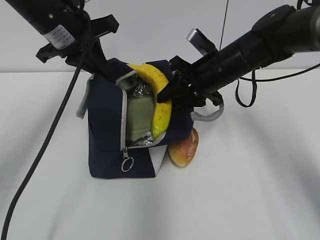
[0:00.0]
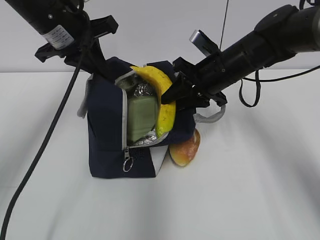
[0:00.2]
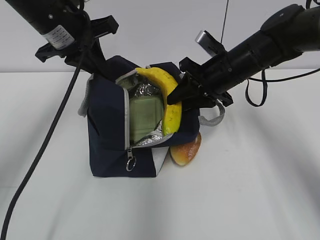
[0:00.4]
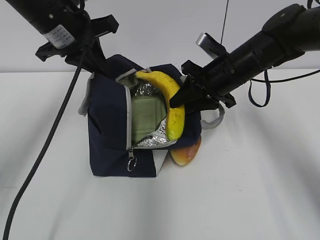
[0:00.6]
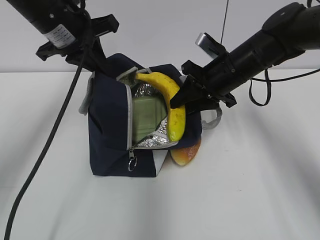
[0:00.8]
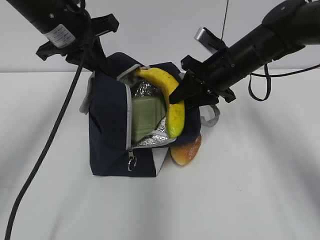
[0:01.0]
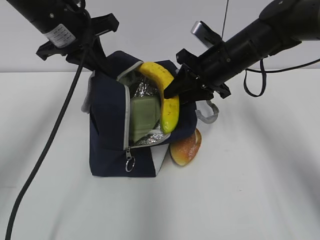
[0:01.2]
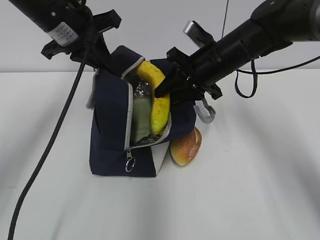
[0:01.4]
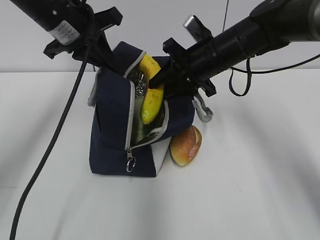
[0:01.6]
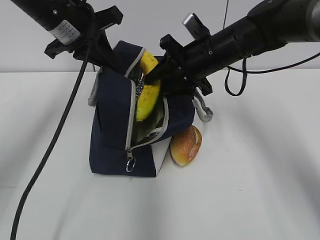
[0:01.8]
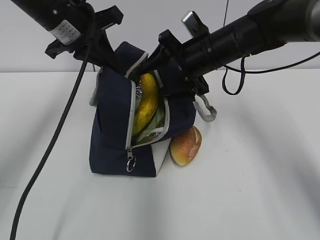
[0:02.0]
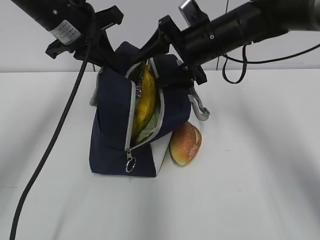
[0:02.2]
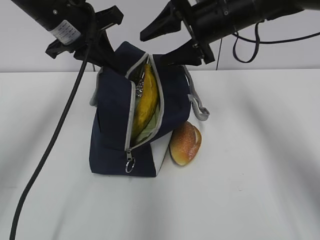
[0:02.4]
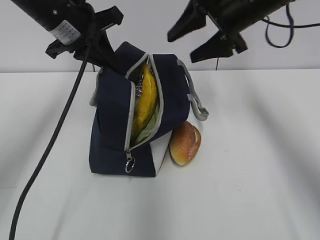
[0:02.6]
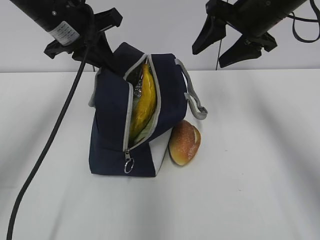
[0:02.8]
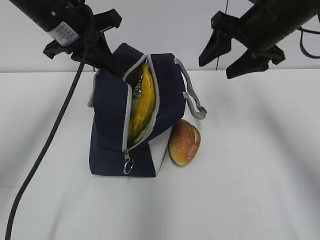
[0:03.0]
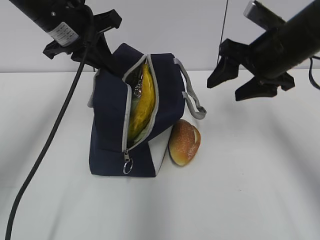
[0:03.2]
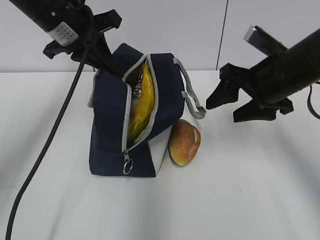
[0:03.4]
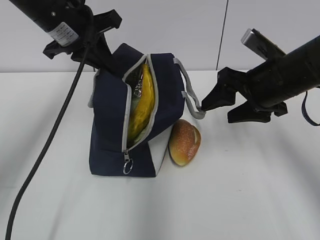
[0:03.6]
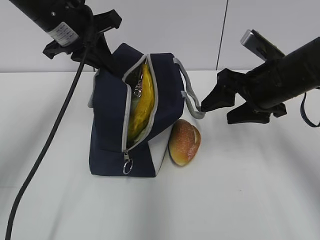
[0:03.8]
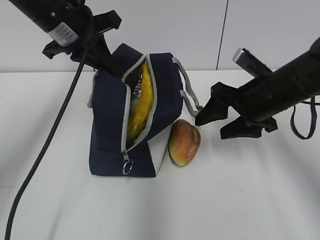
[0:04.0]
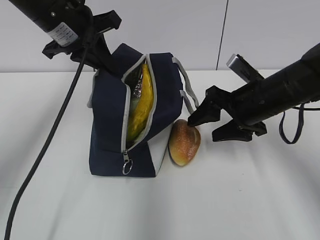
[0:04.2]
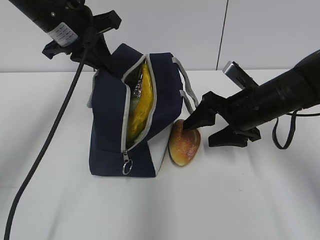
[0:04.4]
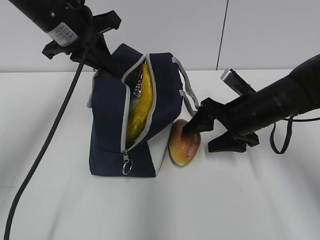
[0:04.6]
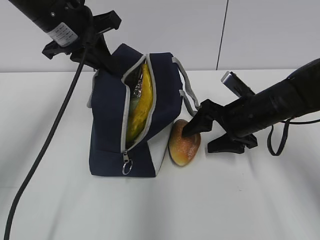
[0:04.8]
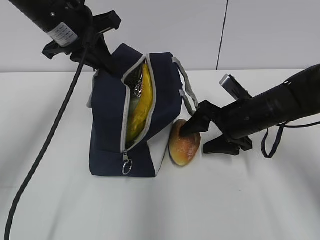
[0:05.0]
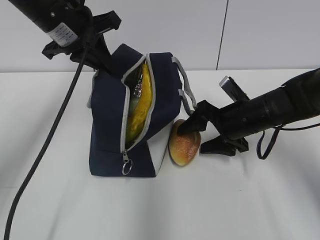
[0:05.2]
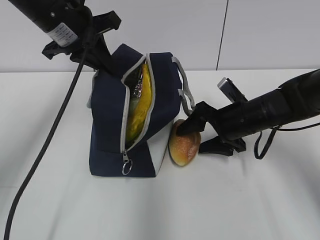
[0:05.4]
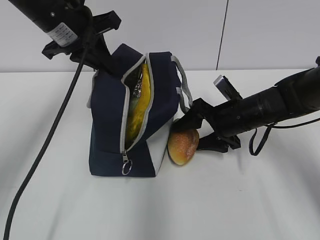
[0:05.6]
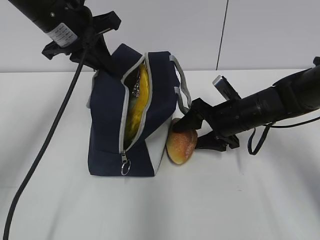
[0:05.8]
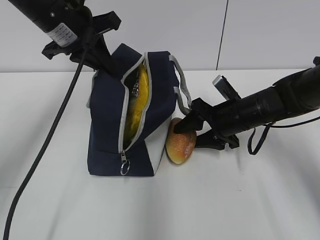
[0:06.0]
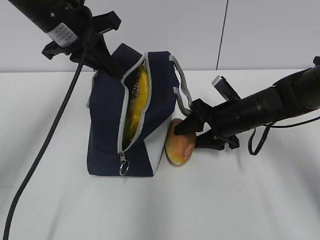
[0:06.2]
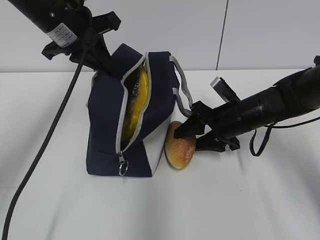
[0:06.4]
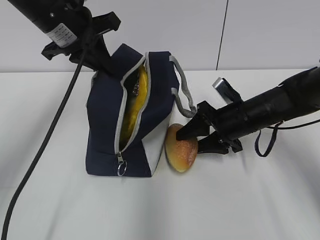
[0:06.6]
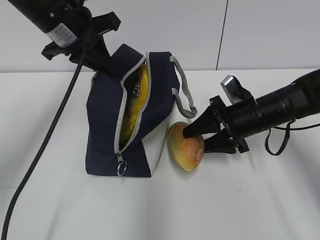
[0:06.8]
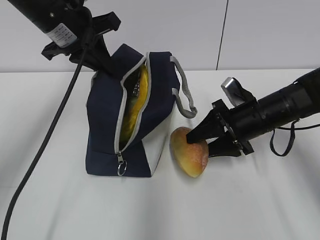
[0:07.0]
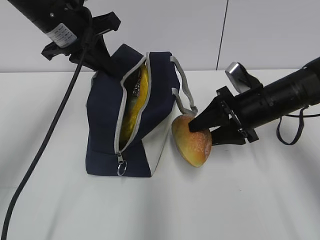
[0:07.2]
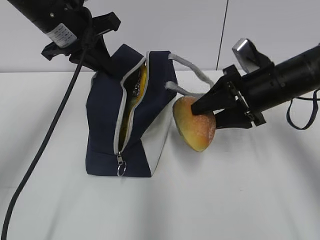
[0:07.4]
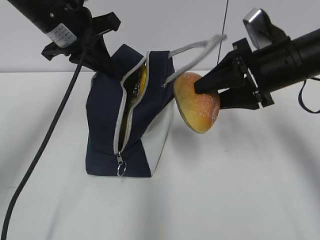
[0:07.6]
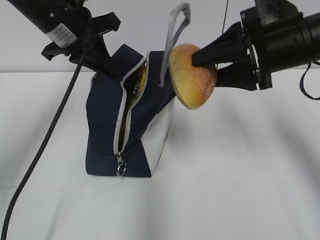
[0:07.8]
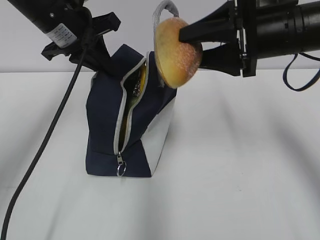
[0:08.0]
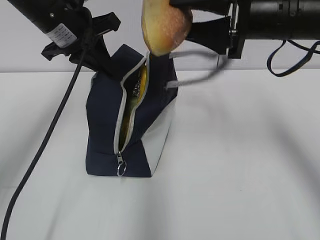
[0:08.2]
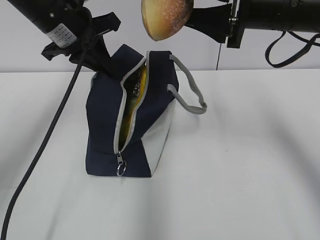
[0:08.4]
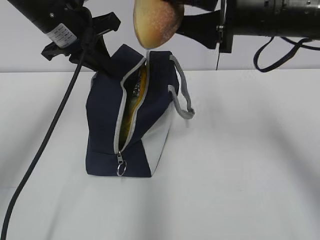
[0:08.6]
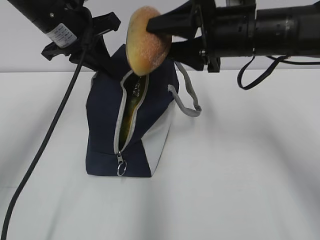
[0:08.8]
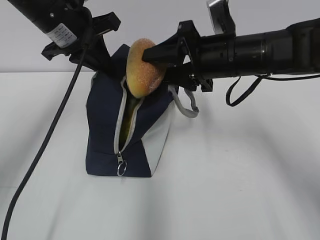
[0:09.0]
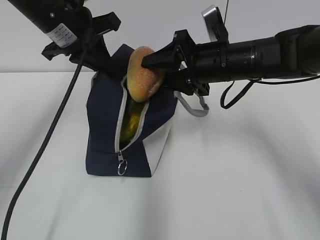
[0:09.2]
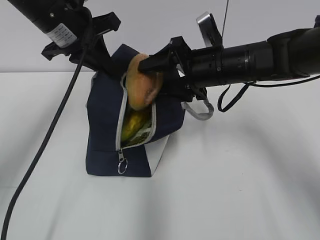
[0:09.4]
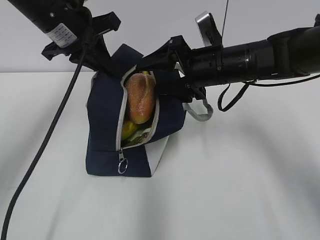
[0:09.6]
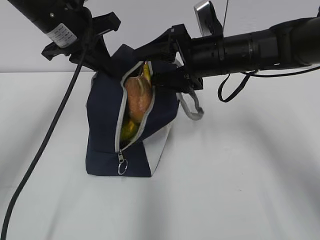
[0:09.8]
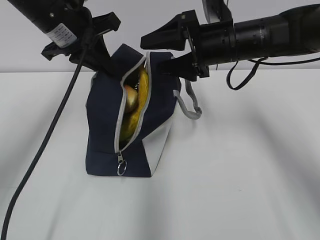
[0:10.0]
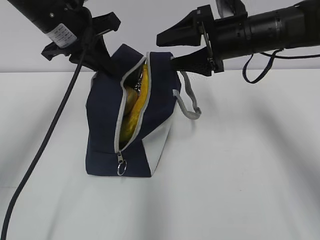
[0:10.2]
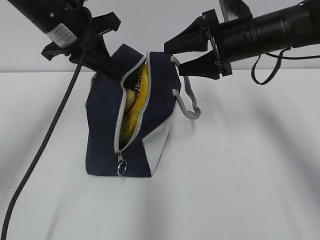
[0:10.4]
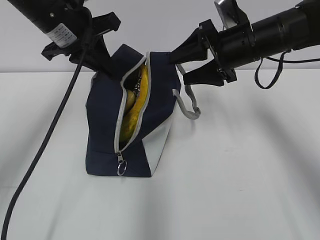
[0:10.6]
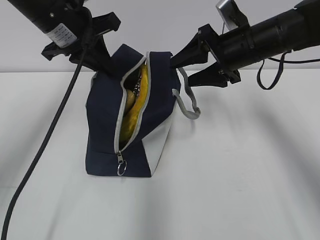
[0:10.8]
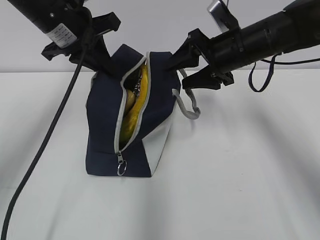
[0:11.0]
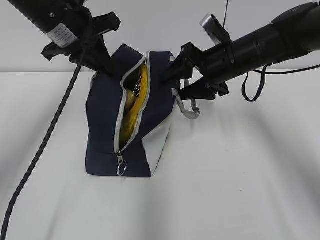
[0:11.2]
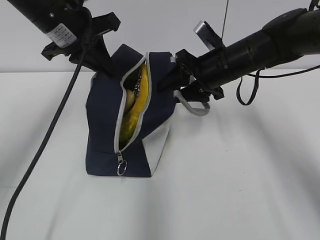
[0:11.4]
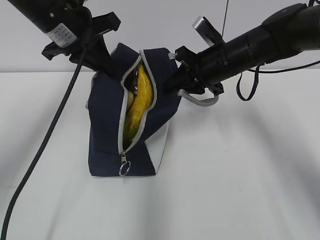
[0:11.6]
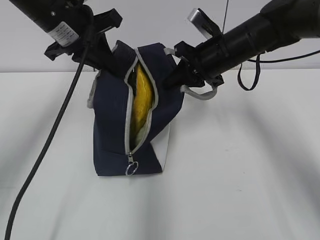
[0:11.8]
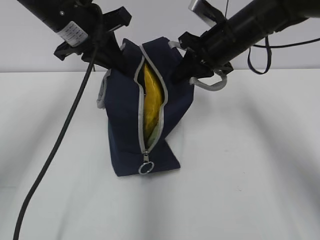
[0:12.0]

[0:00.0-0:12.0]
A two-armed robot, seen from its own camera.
0:01.6 to 0:03.0: The right gripper travels upward and to the right by some 10 cm, and opens.
0:03.0 to 0:04.4: The right gripper shifts about 15 cm downward.
0:04.4 to 0:06.0: The right gripper shifts approximately 5 cm downward.
0:06.0 to 0:07.6: The right gripper moves upward, roughly 15 cm.
0:07.6 to 0:09.0: The right gripper travels to the left by some 5 cm, and moves roughly 10 cm upward and comes back.
0:09.0 to 0:10.4: The right gripper moves about 5 cm.
0:10.4 to 0:12.0: The right gripper closes up.

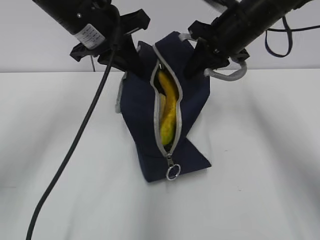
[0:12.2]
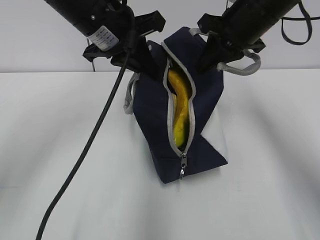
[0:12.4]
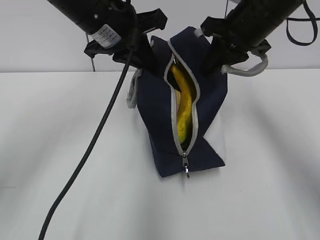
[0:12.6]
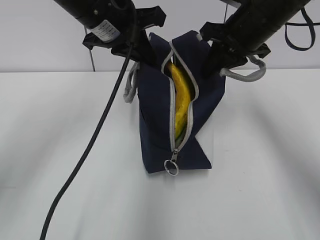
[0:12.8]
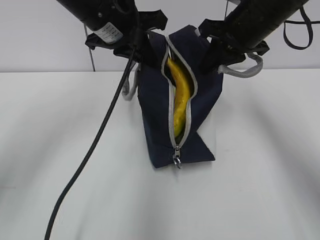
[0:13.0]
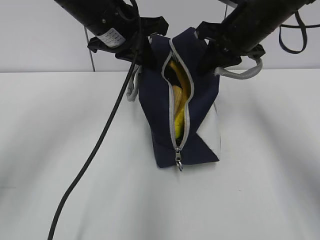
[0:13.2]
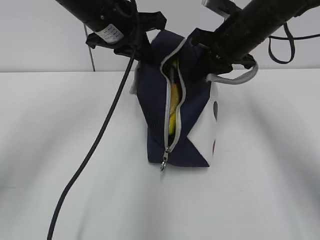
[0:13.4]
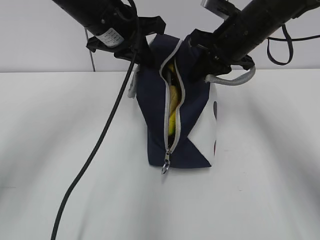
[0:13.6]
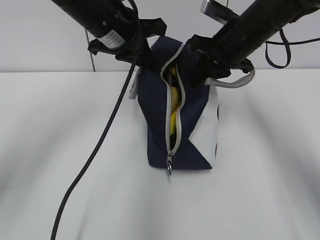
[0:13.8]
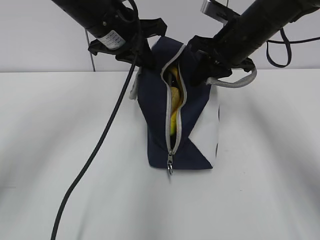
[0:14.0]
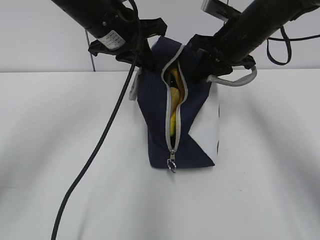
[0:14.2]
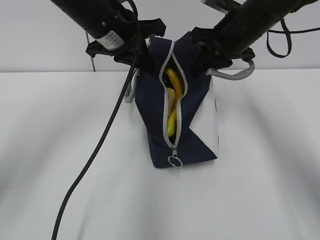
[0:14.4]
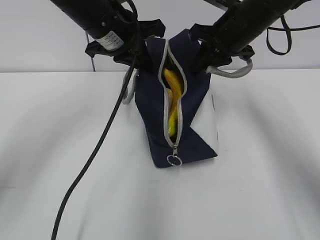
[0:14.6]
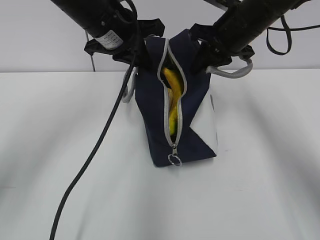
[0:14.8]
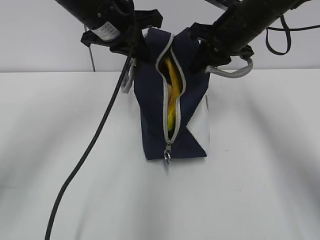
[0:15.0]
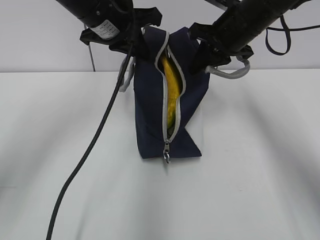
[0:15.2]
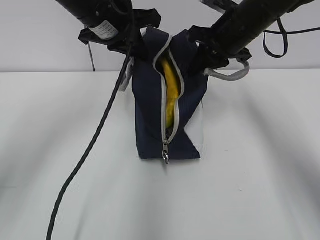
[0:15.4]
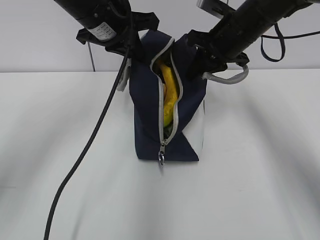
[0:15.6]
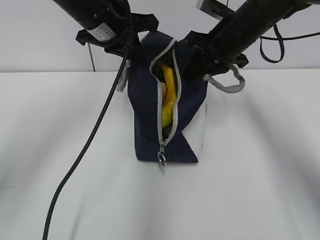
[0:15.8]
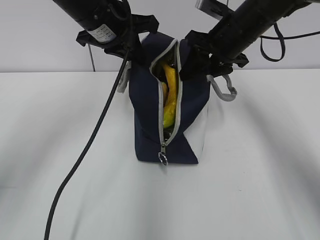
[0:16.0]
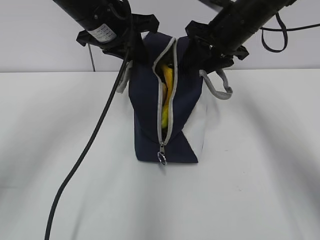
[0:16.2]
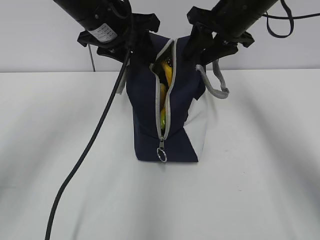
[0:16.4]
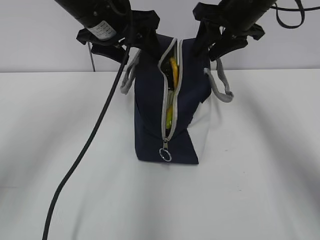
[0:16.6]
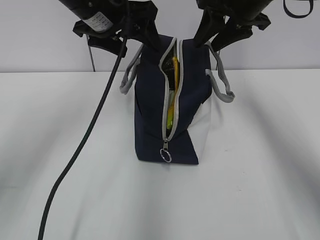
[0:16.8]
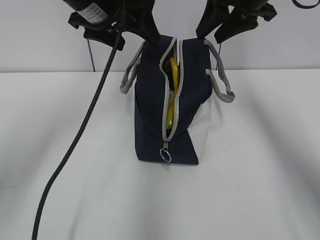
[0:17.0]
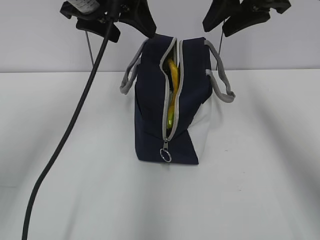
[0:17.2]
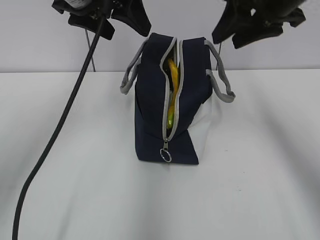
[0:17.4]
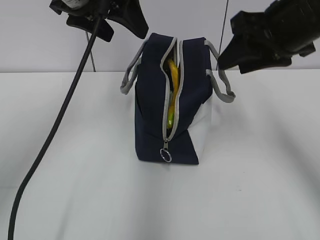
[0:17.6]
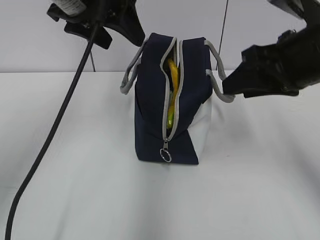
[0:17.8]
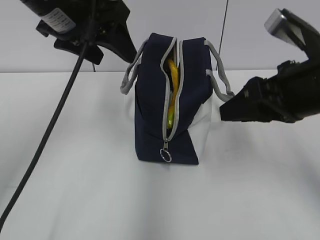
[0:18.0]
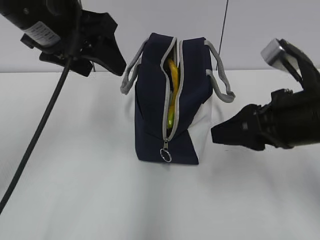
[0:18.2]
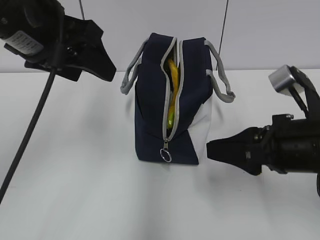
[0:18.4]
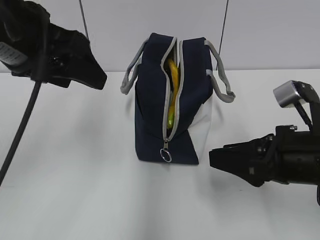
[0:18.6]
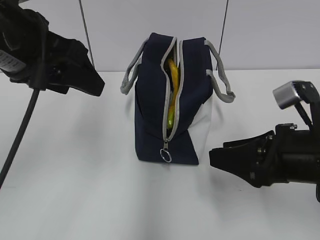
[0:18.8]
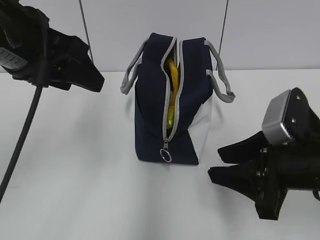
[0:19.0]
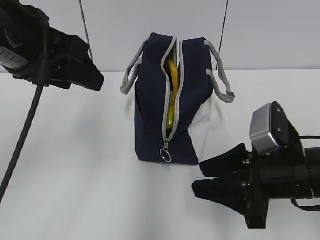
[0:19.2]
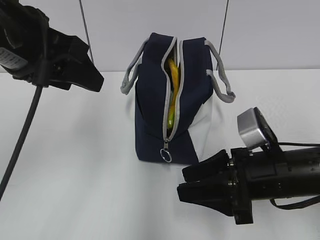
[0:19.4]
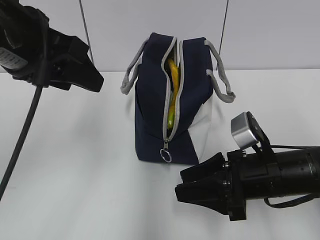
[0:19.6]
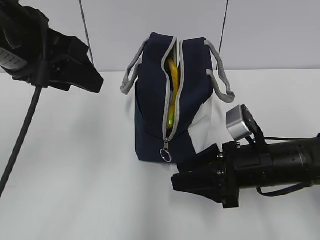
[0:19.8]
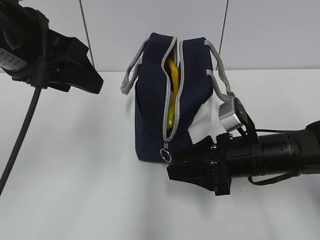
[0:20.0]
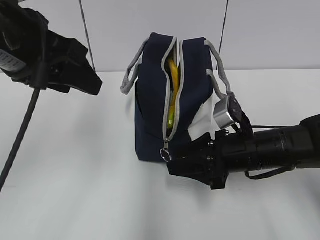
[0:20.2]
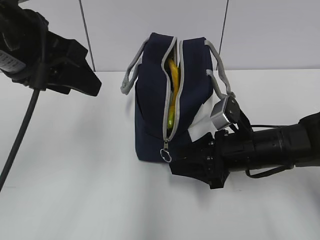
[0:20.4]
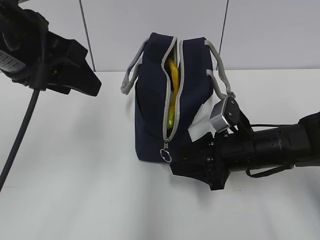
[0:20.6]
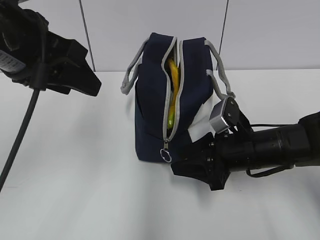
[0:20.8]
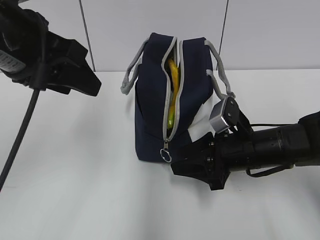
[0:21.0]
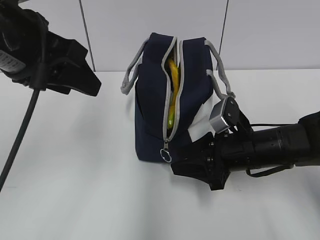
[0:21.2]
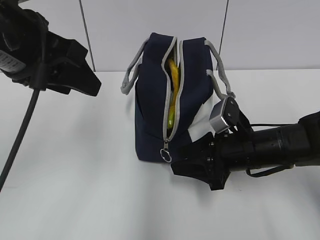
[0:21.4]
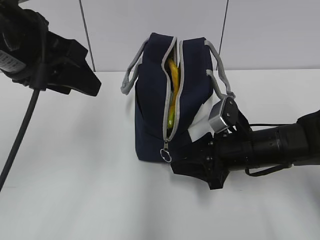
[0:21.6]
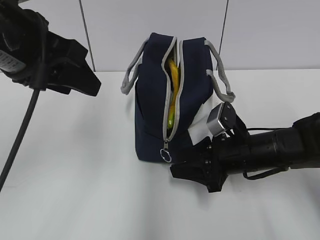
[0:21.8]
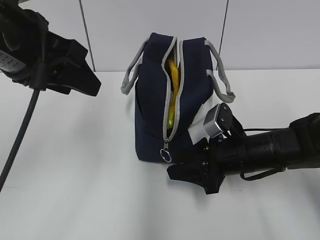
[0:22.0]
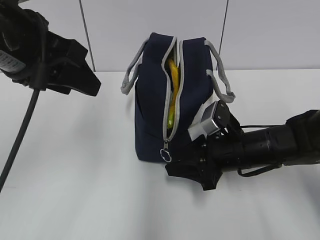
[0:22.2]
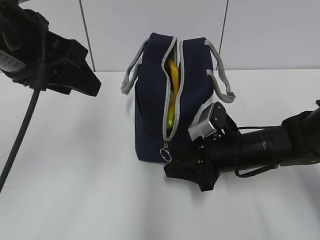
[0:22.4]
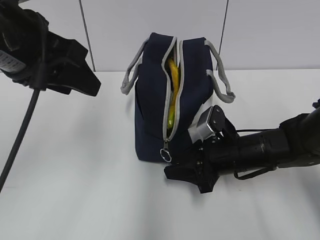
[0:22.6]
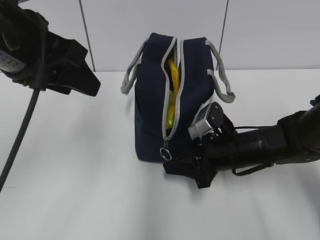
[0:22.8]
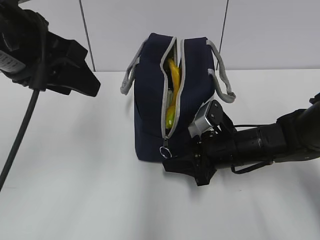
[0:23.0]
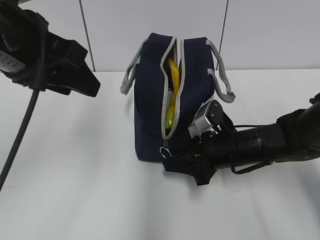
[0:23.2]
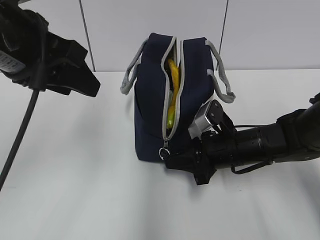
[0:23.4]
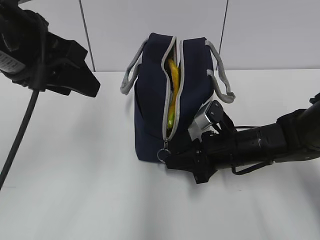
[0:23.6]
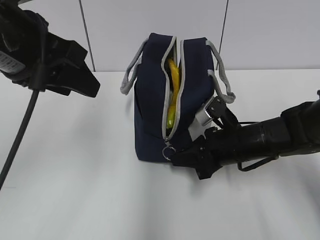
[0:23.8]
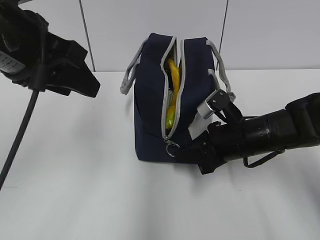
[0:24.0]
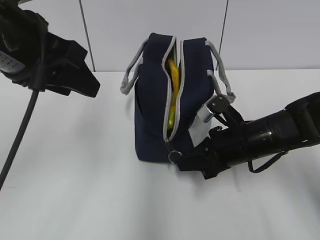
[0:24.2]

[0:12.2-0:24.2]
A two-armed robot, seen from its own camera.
0:12.2 to 0:15.2: There are only small adjustments of the grippers.
0:15.2 to 0:16.6: The left gripper opens up; the right gripper opens.
0:16.6 to 0:18.2: The right gripper heads backward, covering approximately 20 cm. The left gripper shifts about 10 cm backward.
0:18.2 to 0:19.8: The left gripper shifts by about 5 cm. Meanwhile the right gripper travels downward by about 10 cm.
0:19.8 to 0:21.2: The grippers make only small movements.
0:21.2 to 0:22.6: The grippers move only a little.
0:22.6 to 0:24.2: The right gripper closes its fingers.
